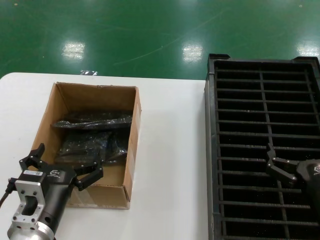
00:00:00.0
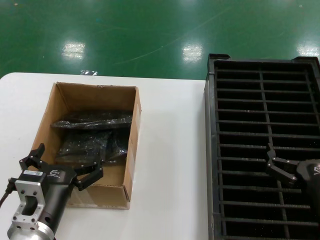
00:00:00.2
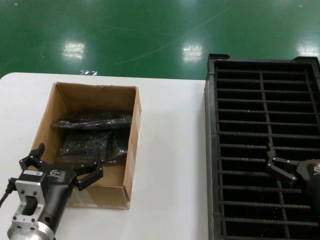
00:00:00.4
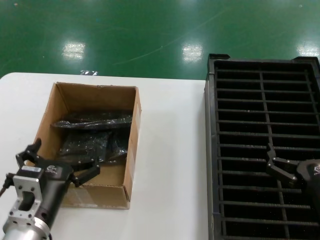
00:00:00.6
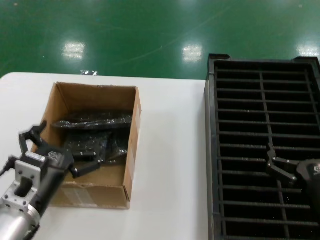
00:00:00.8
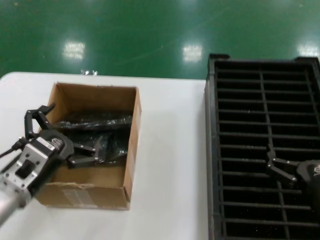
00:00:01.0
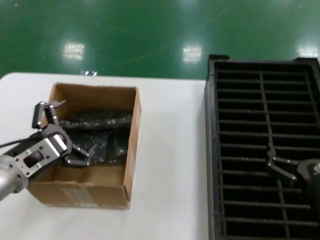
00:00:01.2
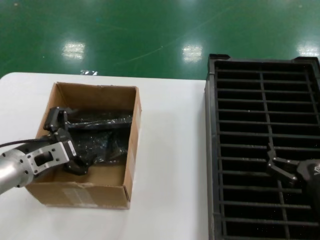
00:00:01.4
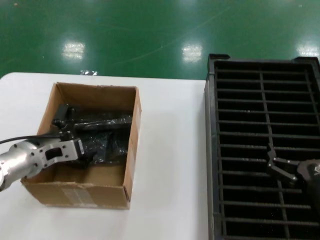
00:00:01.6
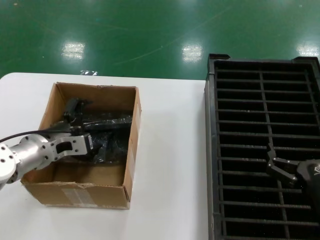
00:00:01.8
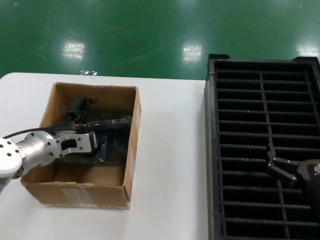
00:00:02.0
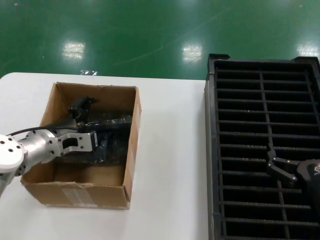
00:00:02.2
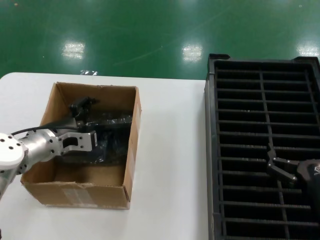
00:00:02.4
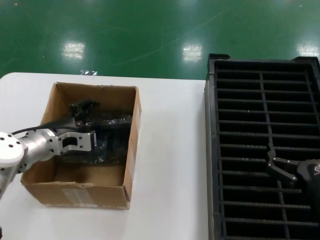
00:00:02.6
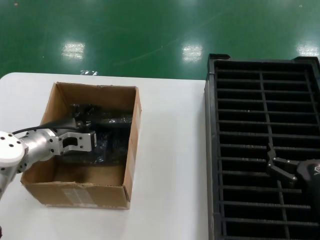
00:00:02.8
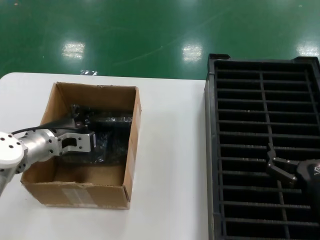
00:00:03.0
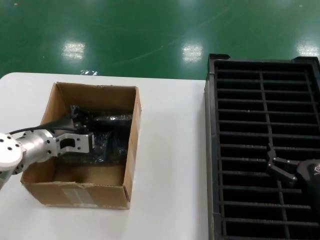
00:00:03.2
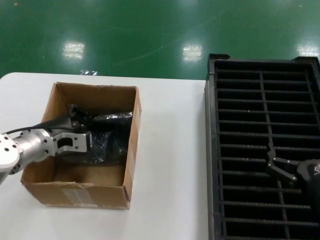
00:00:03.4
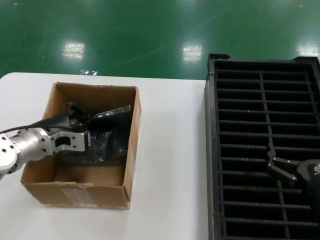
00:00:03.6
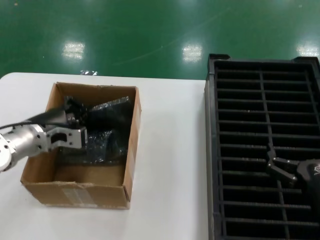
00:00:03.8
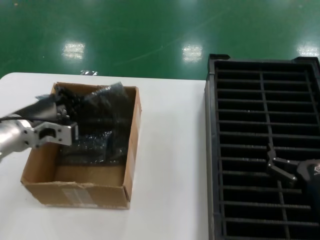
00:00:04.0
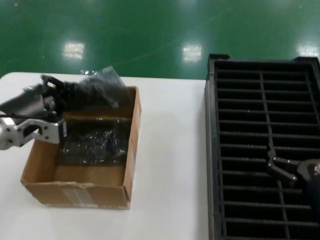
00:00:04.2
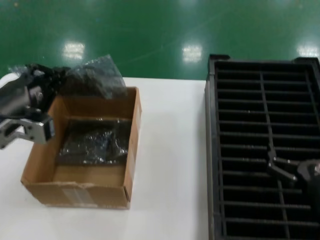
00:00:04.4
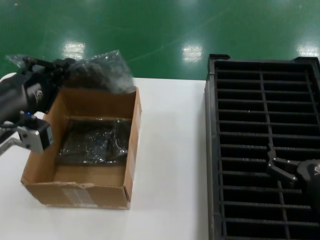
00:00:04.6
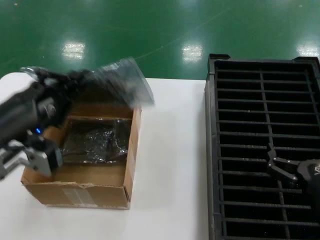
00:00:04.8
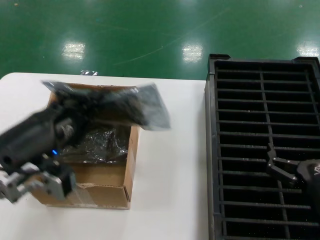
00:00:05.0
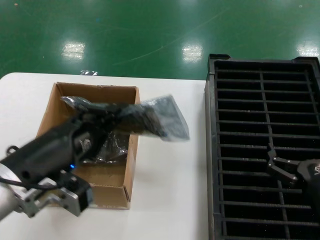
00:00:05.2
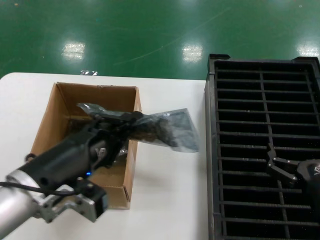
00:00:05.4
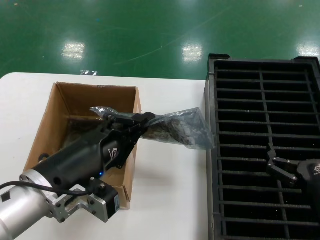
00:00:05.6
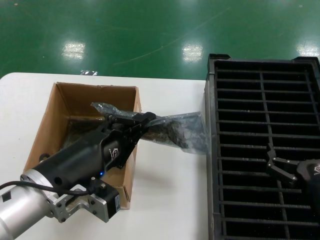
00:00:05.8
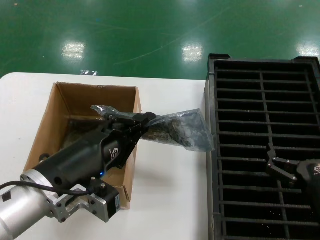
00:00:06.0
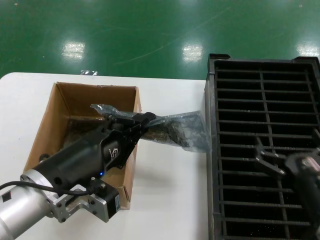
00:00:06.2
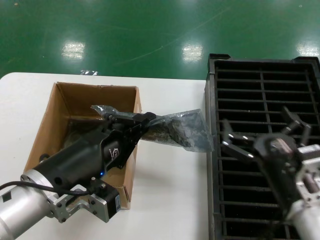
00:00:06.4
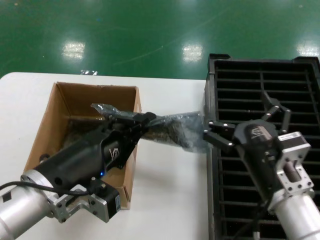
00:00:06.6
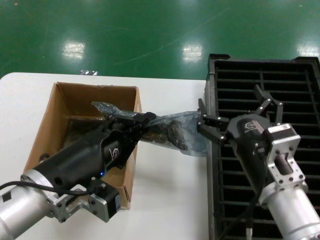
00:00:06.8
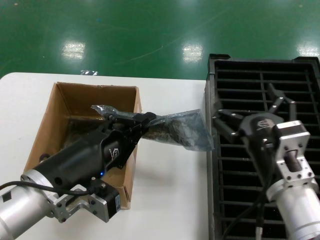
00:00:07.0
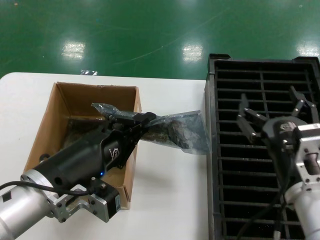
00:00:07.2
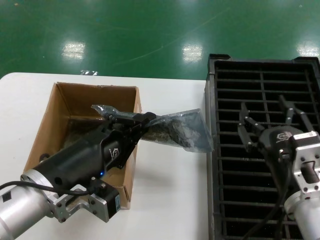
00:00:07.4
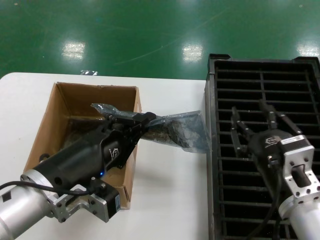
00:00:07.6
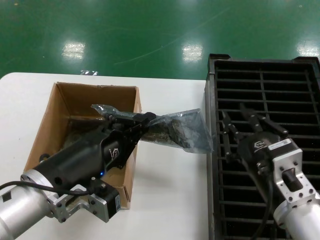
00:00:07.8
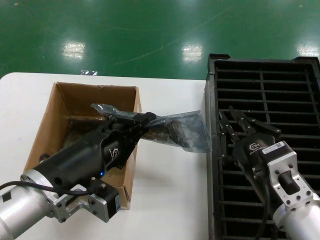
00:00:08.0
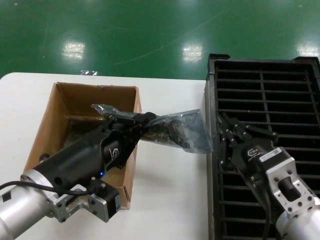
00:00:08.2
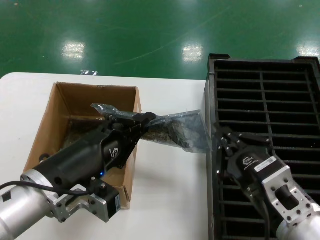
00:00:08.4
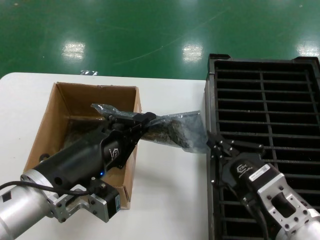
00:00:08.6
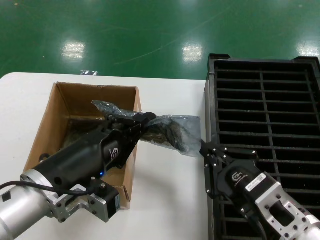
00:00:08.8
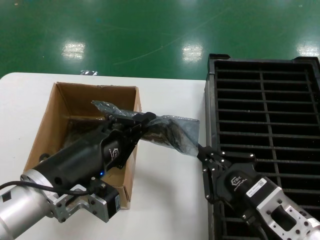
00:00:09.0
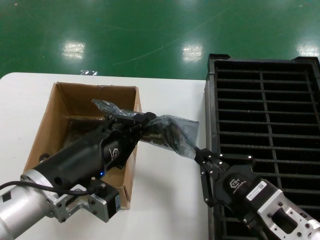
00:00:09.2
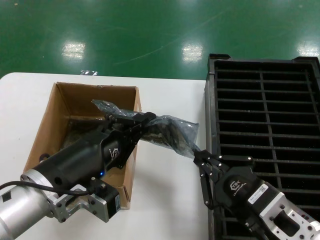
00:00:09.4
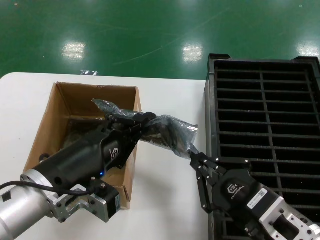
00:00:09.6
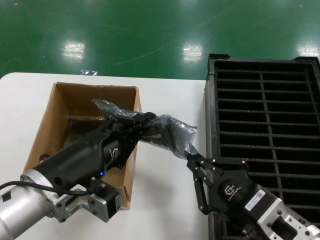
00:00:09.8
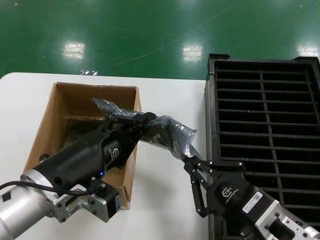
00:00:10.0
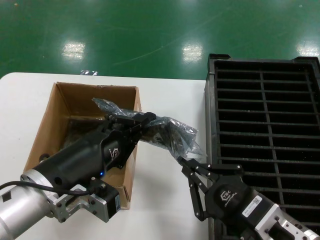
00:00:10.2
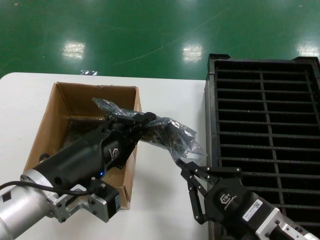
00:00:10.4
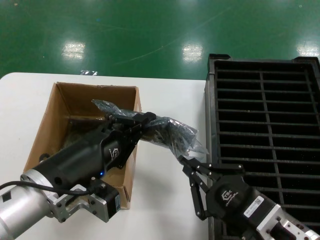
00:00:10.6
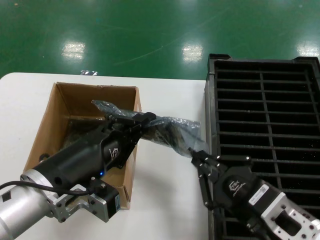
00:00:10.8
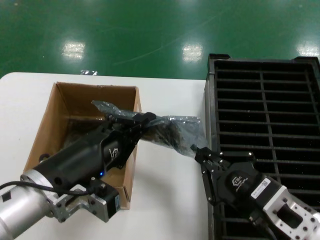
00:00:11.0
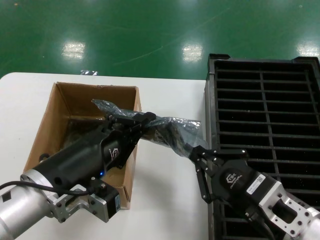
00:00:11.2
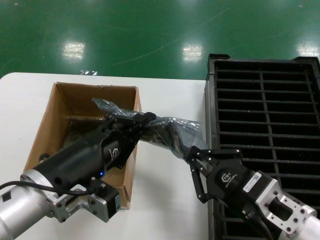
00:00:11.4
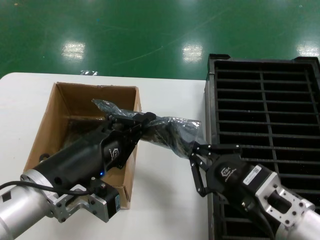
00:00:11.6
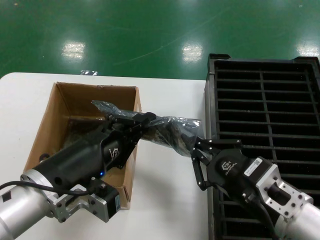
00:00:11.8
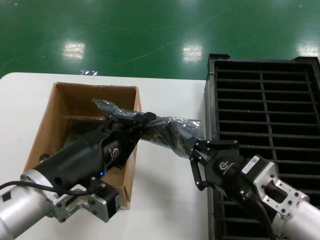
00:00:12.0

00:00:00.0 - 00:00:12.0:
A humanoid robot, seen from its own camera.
Task of the whole recording: take out graphics card from box remove packaging put into black container.
Step, 00:00:00.0 - 00:00:03.2: Grasp the bag.
Step, 00:00:03.6 - 00:00:05.8: Lift the bag.
00:00:00.0 - 00:00:01.6: The left hand goes approximately 20 cm forward, to the left and upward.
00:00:01.6 - 00:00:03.0: The left hand travels forward by roughly 5 cm.
00:00:03.0 - 00:00:04.4: The left hand is displaced backward and upward by some 15 cm.
00:00:04.4 - 00:00:06.0: The left hand heads to the right and backward, covering about 15 cm.
00:00:06.0 - 00:00:07.6: The right hand goes about 10 cm to the left and upward.
00:00:09.0 - 00:00:10.4: The hands stay close to where they were, moving slightly.
00:00:10.4 - 00:00:12.0: The right hand travels forward by about 5 cm.

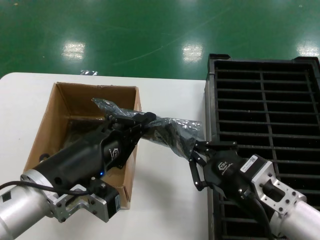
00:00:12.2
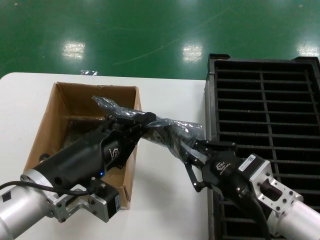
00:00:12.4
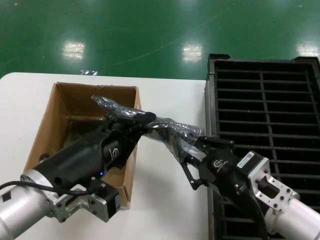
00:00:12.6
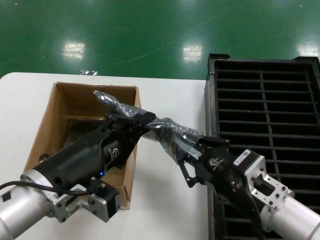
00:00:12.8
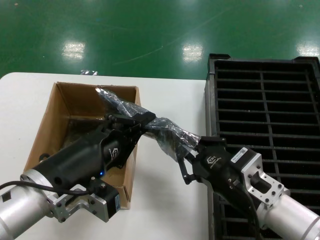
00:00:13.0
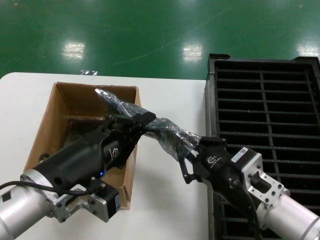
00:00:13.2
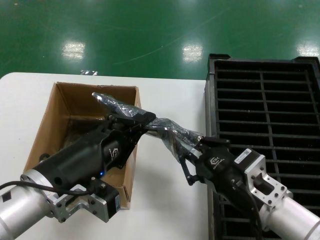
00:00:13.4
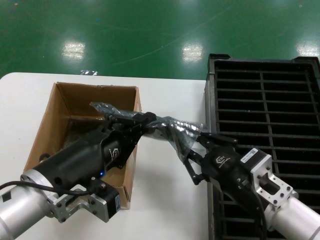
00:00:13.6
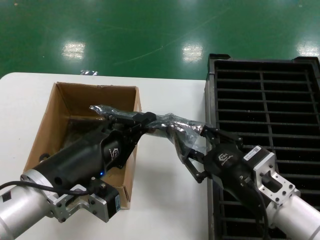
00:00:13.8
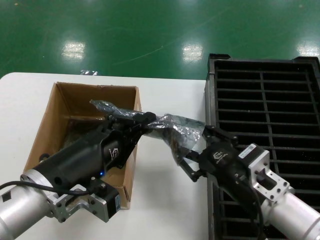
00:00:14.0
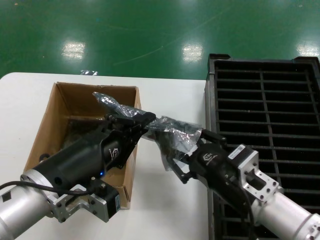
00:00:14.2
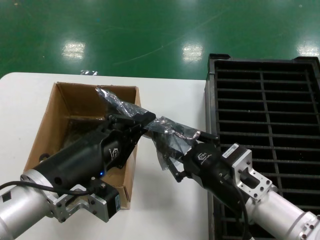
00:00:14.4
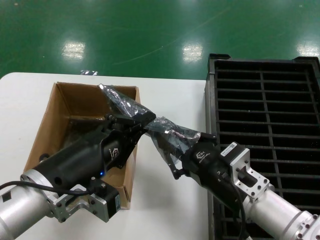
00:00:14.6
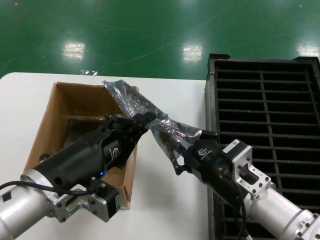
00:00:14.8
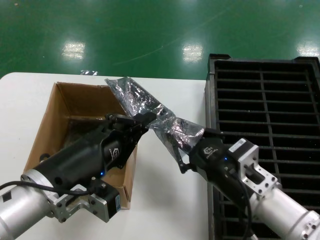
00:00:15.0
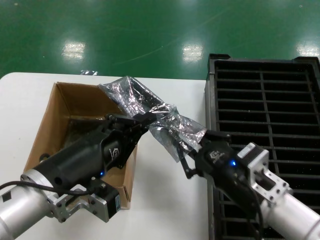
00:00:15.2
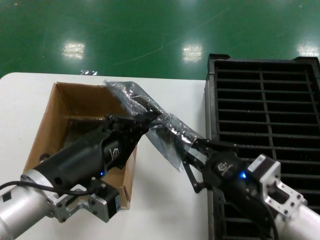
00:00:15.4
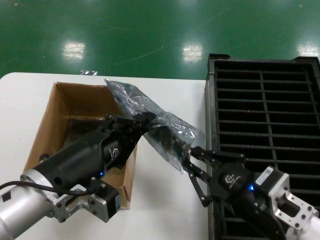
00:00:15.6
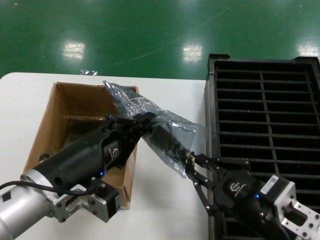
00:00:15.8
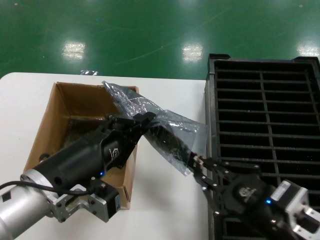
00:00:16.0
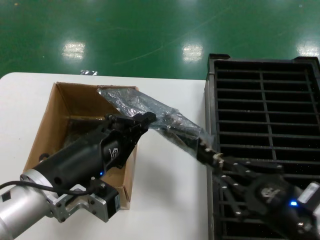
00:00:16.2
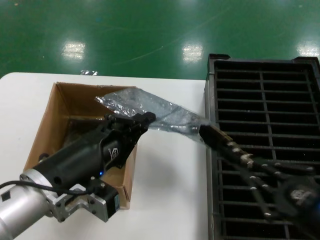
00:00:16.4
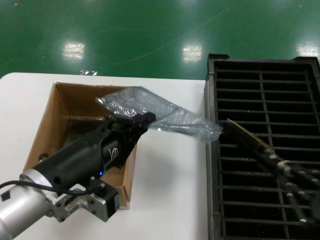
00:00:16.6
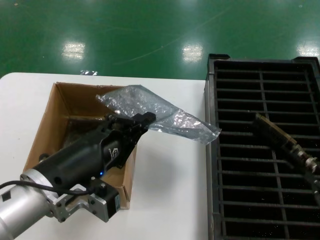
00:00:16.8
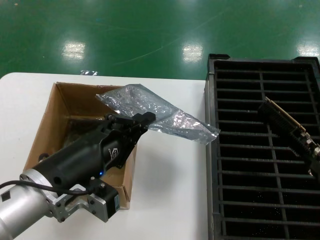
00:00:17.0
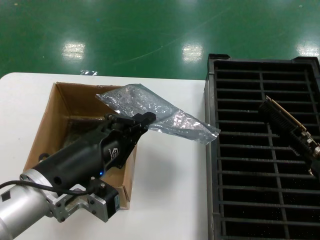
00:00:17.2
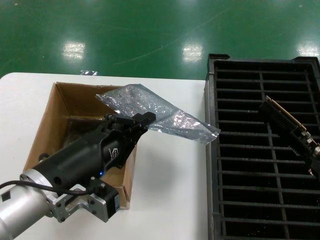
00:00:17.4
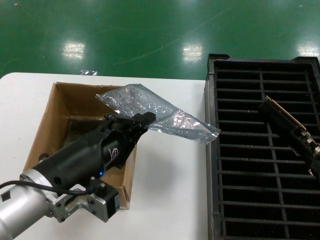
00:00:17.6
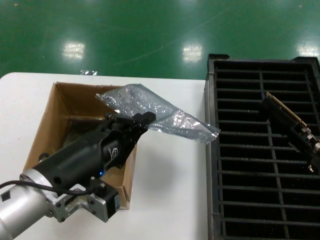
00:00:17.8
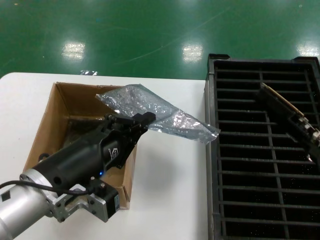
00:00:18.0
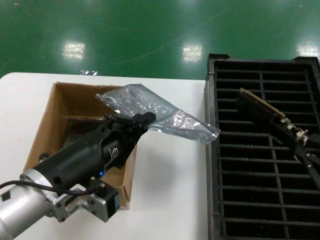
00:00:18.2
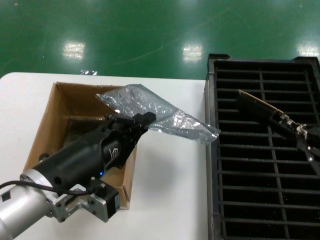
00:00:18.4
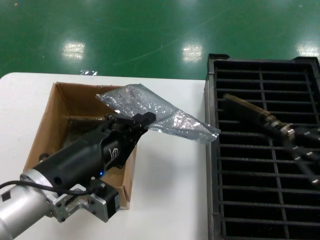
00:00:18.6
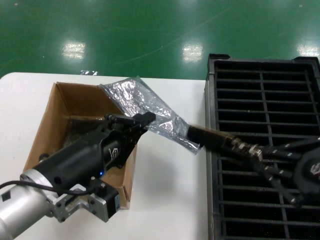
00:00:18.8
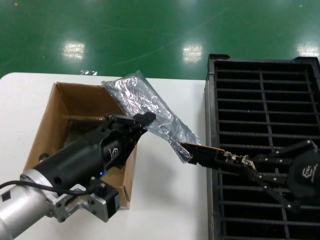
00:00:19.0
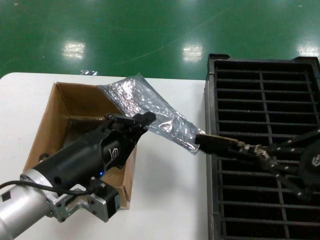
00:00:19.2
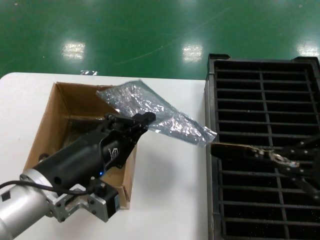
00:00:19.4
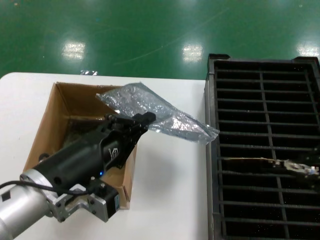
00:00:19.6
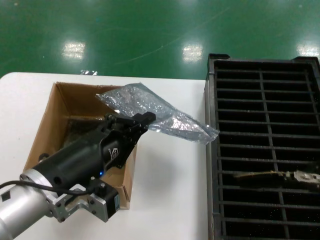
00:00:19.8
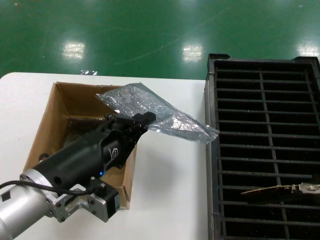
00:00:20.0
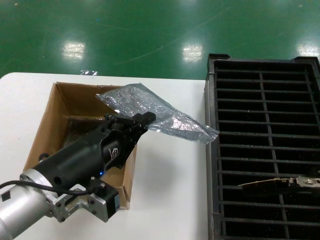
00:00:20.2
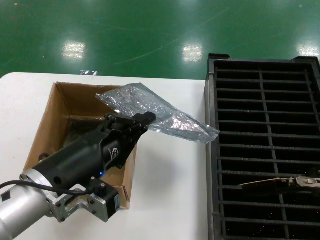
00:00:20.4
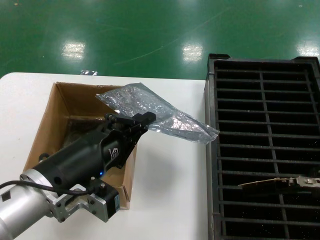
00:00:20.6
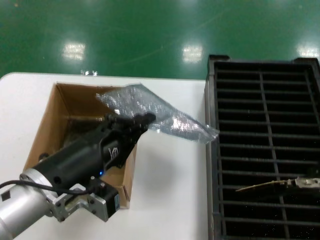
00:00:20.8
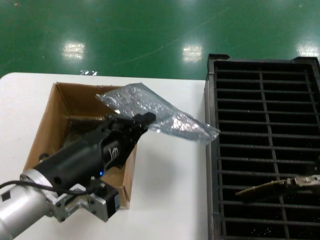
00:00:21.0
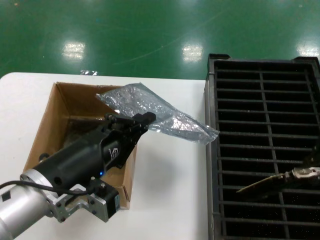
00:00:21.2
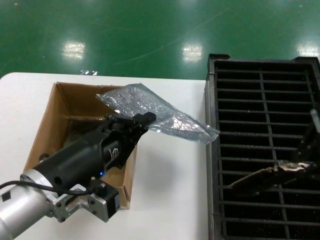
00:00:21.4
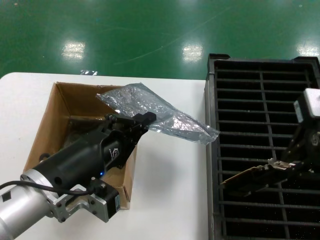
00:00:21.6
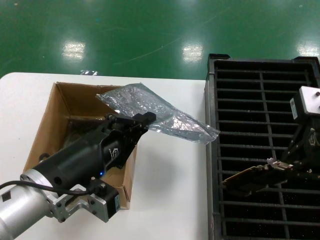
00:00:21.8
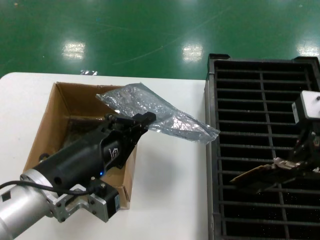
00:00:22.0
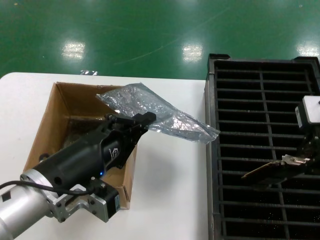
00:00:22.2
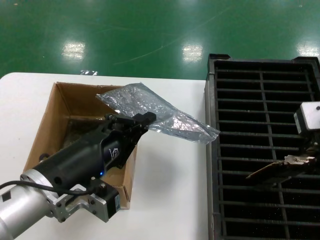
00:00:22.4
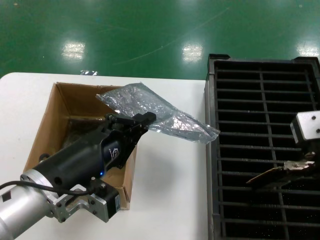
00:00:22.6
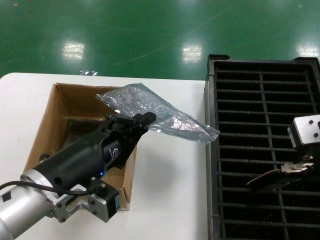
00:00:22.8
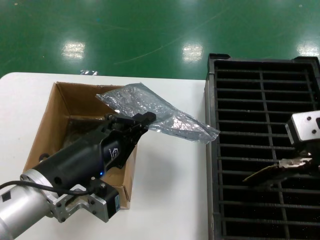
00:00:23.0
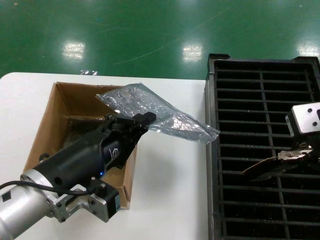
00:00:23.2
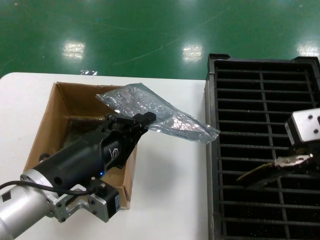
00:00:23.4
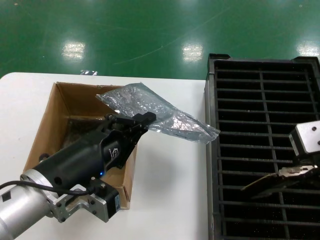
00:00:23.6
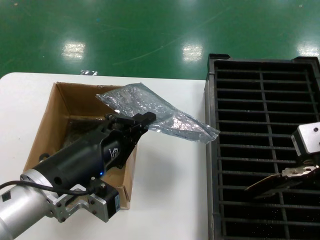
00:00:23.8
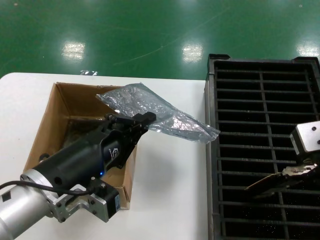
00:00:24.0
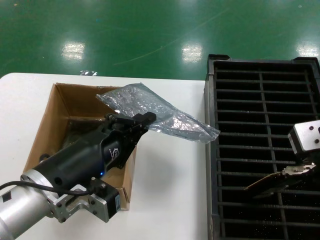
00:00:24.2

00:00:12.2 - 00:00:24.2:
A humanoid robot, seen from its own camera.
Task of the whole recording: take out graphics card from box remove packaging put into black container.
Step, 00:00:12.2 - 00:00:16.6: Take out the hard disk of the bag.
00:00:12.2 - 00:00:15.2: The hands stay close to where they were, moving slightly.
00:00:15.2 - 00:00:16.6: The right hand goes approximately 20 cm to the right and backward.
00:00:16.6 - 00:00:18.2: The right hand goes about 5 cm upward.
00:00:18.2 - 00:00:19.8: The right hand travels upward by about 15 cm.
00:00:19.8 - 00:00:21.2: The right hand moves upward, roughly 5 cm.
00:00:21.2 - 00:00:22.6: The right hand heads forward, covering about 5 cm.
00:00:22.6 - 00:00:24.2: The hands make only small movements.
